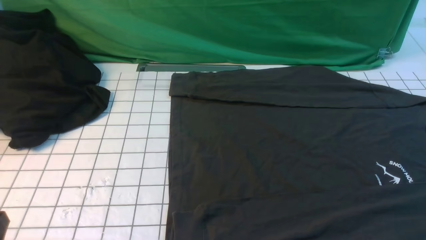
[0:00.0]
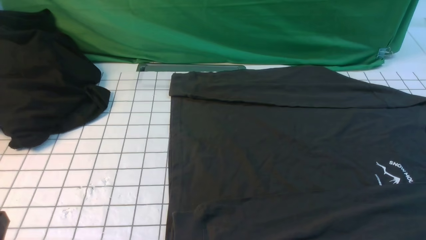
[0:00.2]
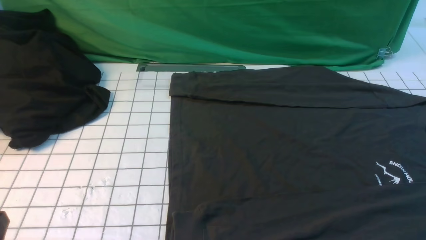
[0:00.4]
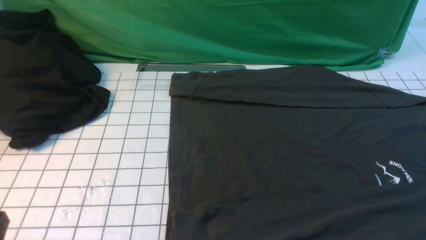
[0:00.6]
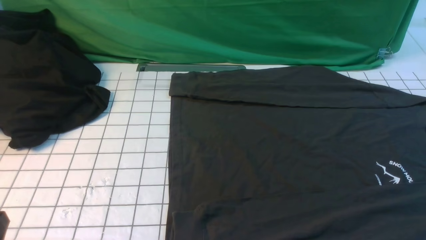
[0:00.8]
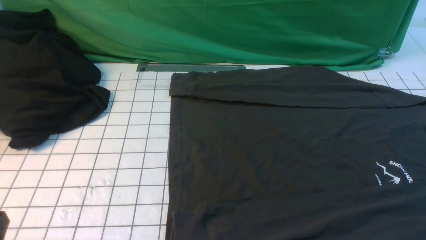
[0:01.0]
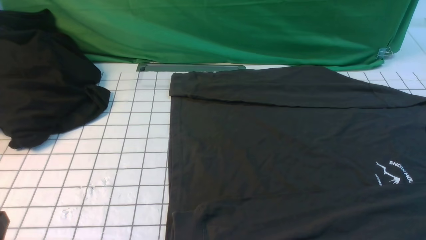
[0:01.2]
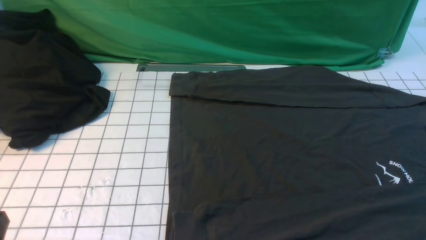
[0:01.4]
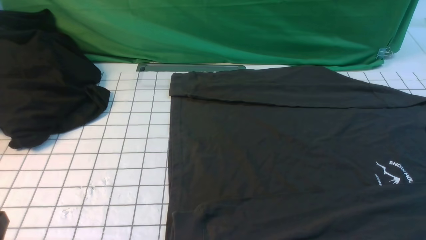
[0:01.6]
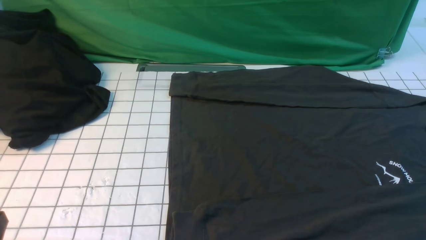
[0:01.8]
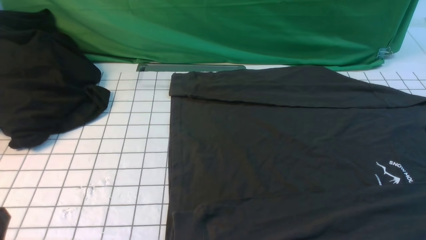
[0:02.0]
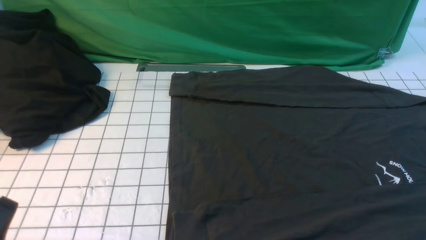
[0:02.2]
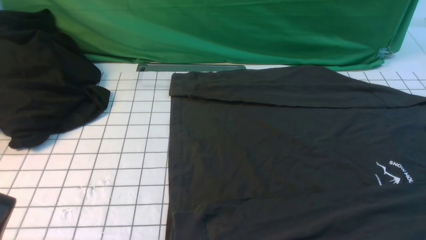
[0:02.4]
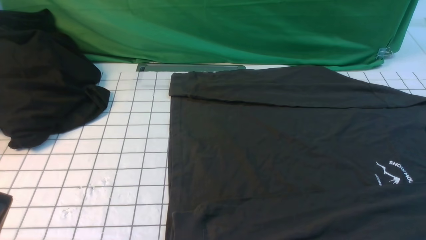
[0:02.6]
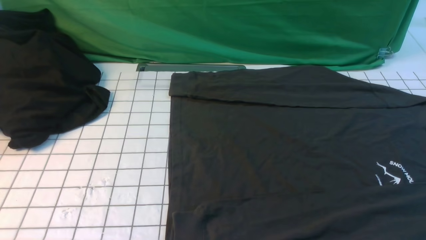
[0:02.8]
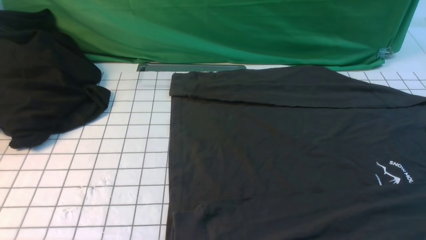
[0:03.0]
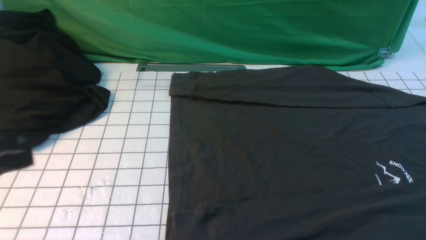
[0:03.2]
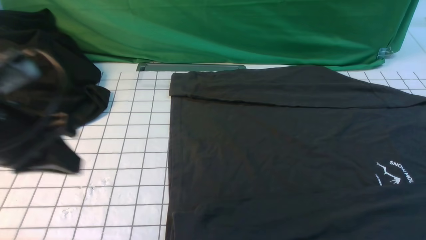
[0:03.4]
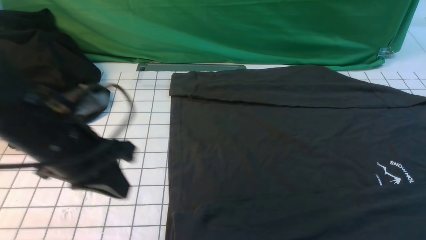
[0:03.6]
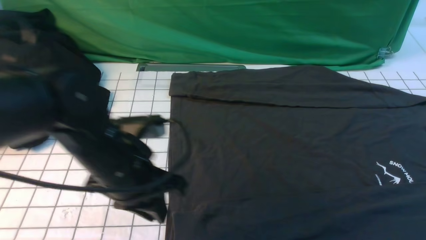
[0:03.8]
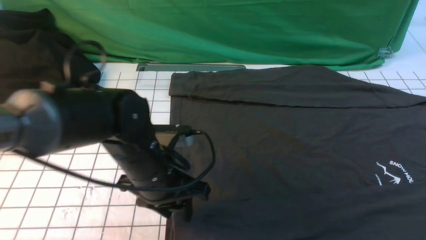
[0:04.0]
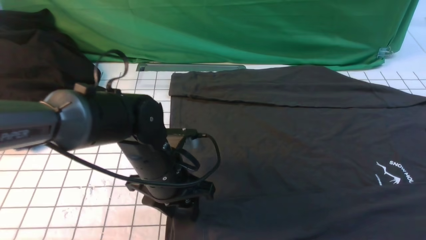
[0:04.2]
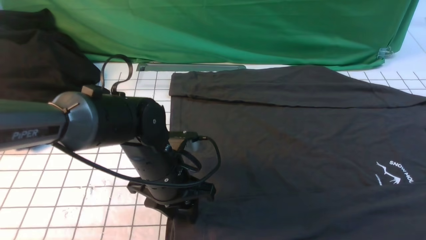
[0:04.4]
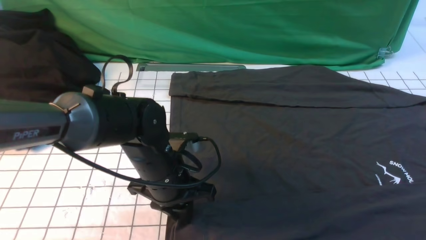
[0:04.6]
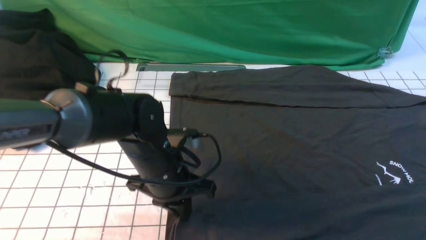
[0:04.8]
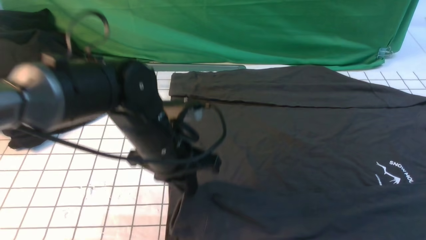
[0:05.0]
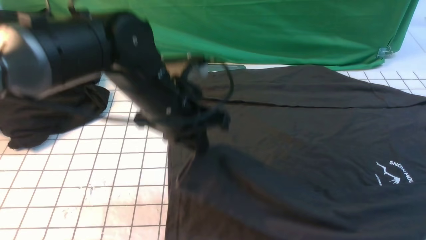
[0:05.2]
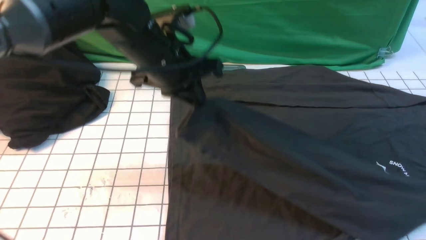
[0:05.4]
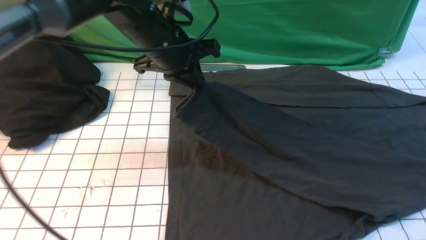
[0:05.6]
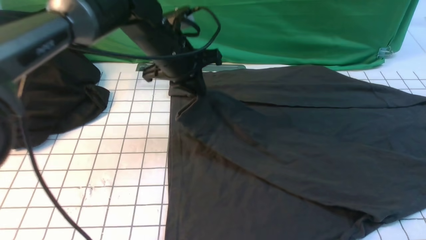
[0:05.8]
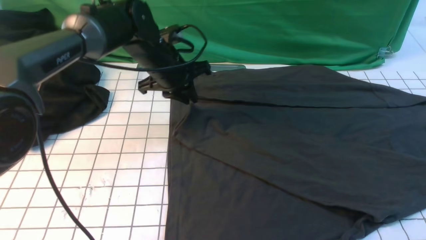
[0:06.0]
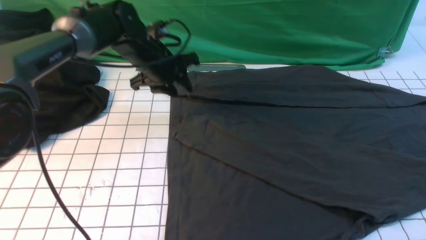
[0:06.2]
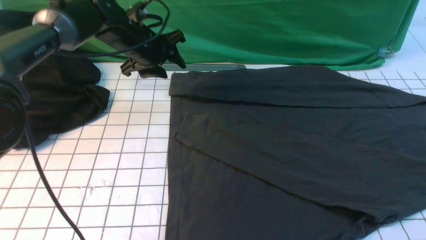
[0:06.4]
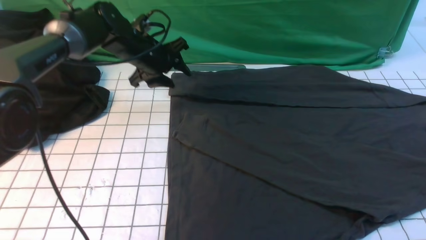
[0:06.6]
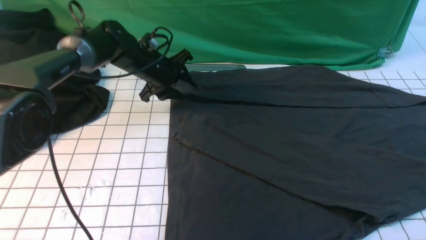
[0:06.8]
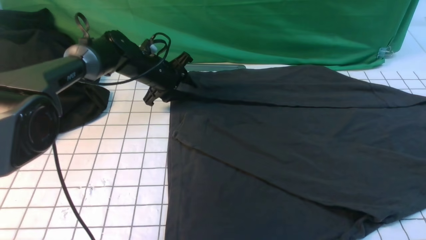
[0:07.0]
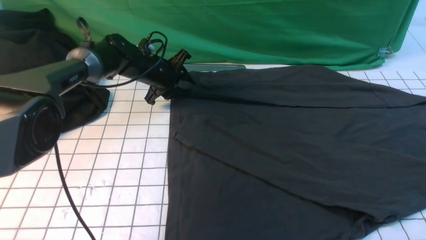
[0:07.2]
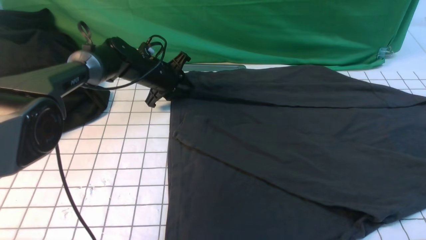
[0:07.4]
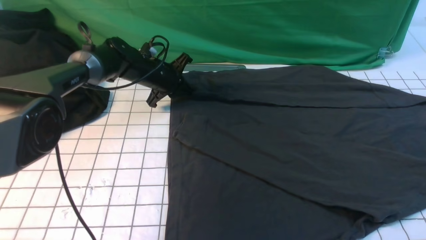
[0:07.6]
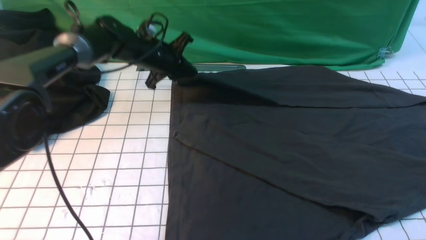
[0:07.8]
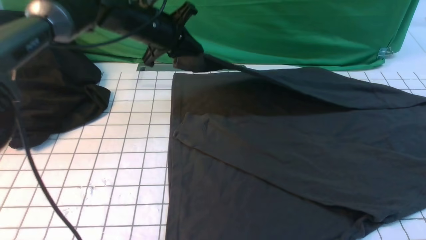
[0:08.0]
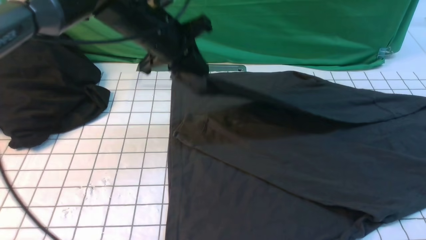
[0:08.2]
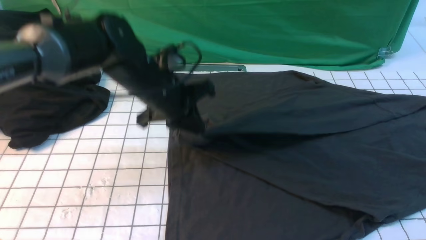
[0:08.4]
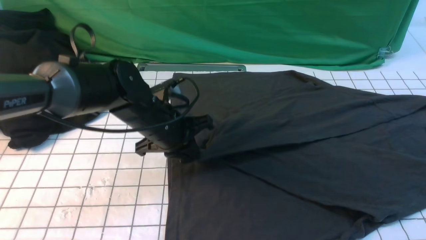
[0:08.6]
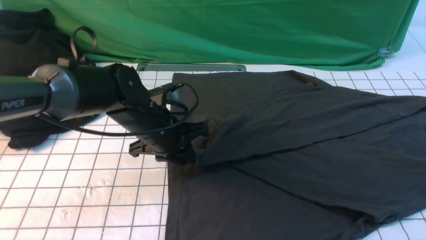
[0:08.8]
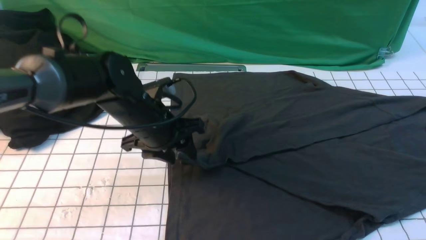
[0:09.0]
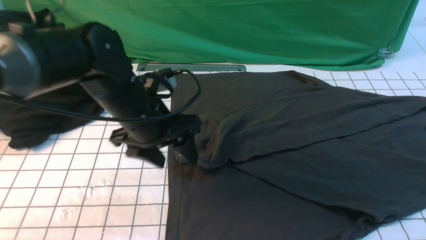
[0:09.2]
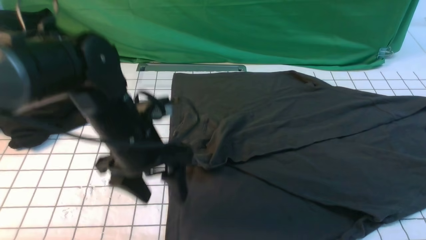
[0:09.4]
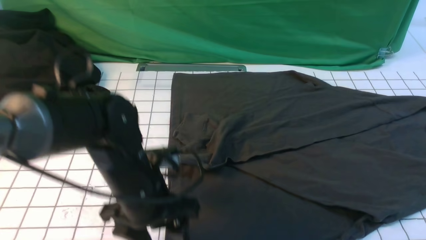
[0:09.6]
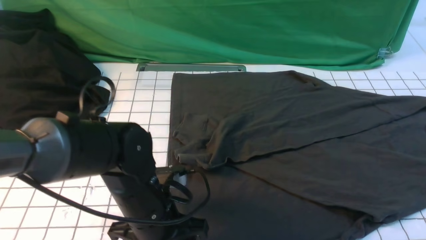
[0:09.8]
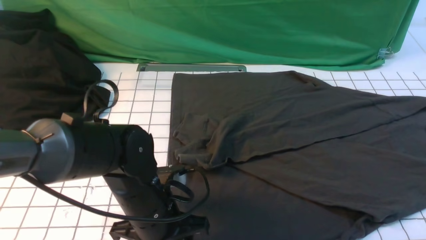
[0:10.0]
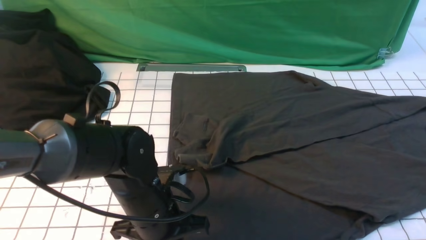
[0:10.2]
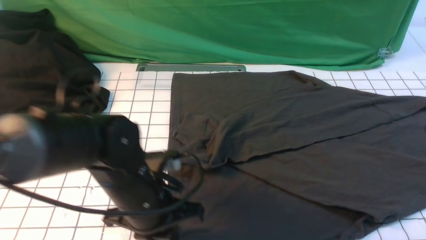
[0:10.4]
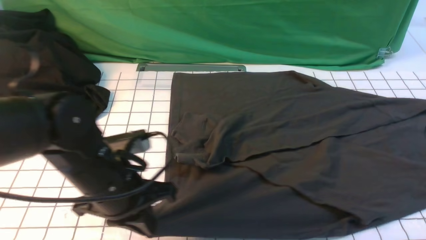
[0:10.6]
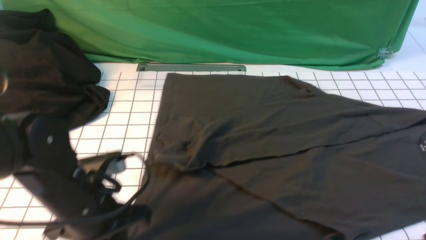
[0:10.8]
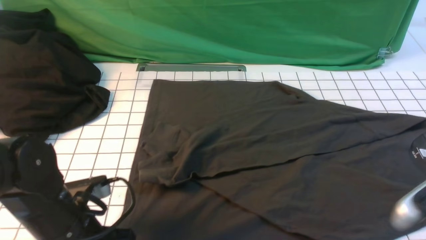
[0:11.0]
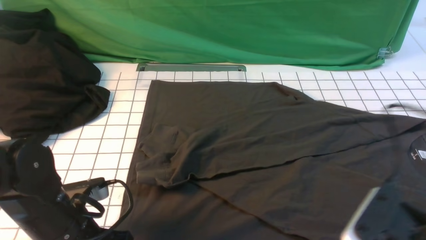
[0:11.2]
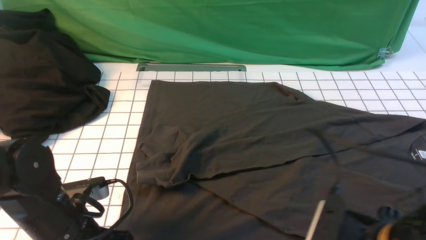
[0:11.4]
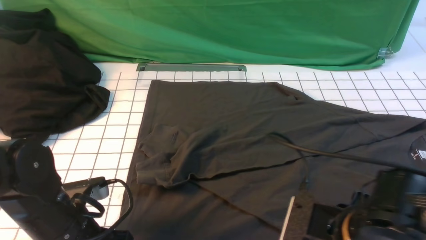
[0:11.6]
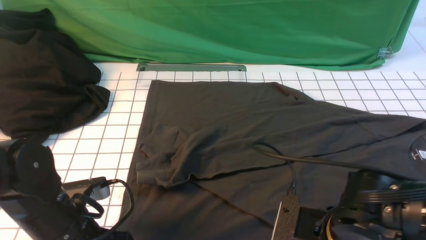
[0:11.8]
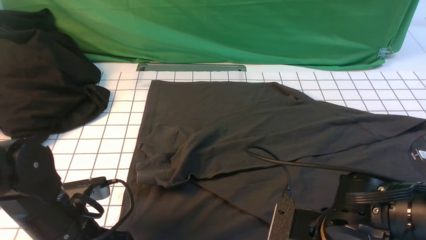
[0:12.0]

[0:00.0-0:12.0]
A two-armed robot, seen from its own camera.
Step, 0.0 to 4.6 s: use the left arm to clamp the cuff closest to it.
Step, 4.8 to 6.0 s: use the left arm to drag and place the cuff at the centered position on the left edge of the fabric.
Step, 6.2 to 7.4 s: use the left arm to clamp the cuff farthest from it.
Step, 7.6 to 9.0 s: use the left arm to drag and drop the cuff onto the cuff closest to the left arm.
0.0 to 1.6 s: Neither gripper changes place.
3.0 to 4.4 s: The right gripper shifts about 5 cm forward. The left gripper shifts roughly 30 cm forward, to the right and downward, and opens up.
4.4 to 6.0 s: The left gripper is displaced forward by roughly 20 cm.
6.0 to 7.6 s: The left gripper goes approximately 10 cm downward and forward, and opens, then closes again.
7.6 to 9.0 s: The left gripper shifts roughly 20 cm backward, and opens its fingers.
9.0 to 10.4 s: The left gripper travels backward by about 10 cm, and closes.
10.4 to 12.0 s: The left gripper travels to the left by approximately 10 cm. The right gripper travels to the left and downward by about 20 cm, and opens its fingers.

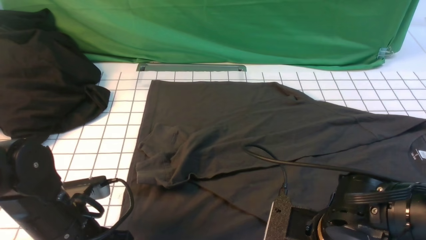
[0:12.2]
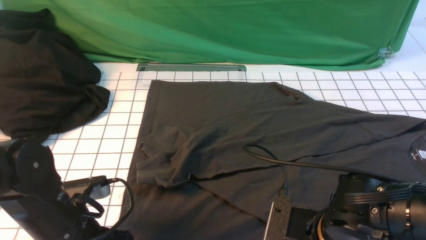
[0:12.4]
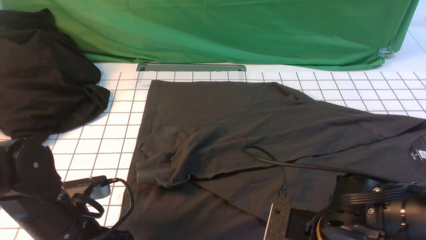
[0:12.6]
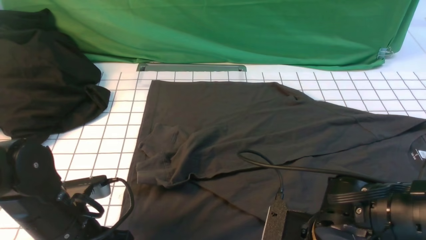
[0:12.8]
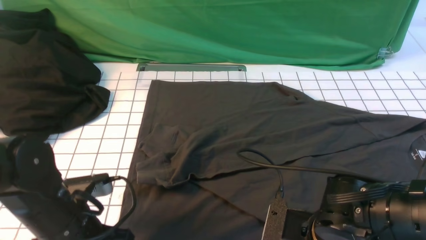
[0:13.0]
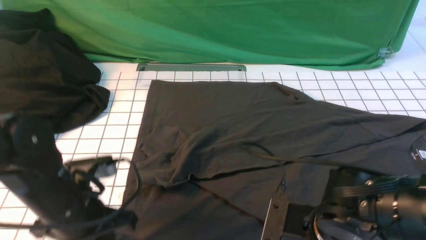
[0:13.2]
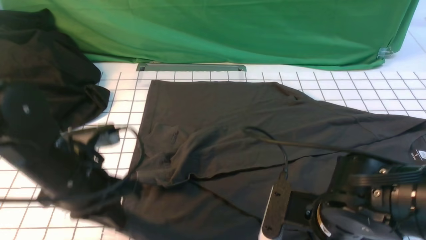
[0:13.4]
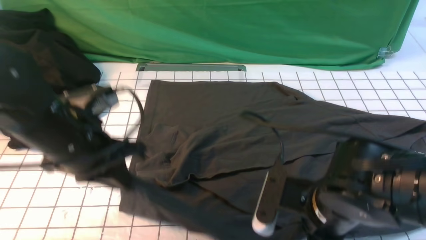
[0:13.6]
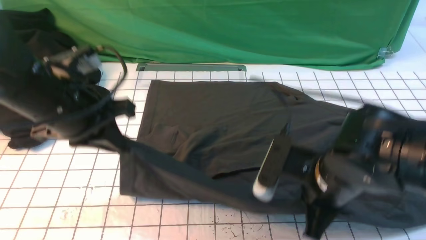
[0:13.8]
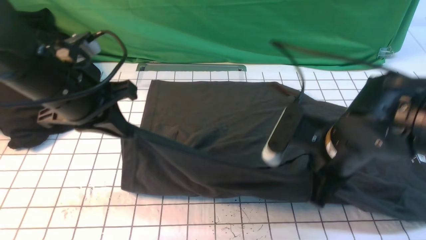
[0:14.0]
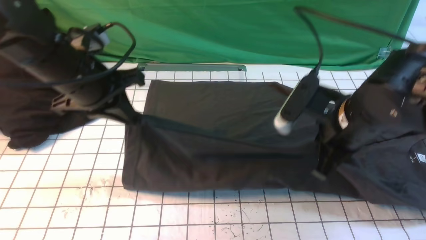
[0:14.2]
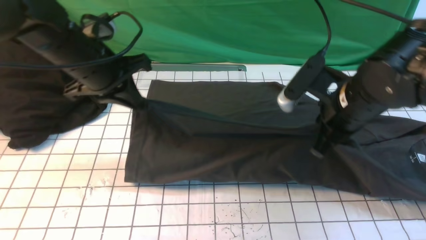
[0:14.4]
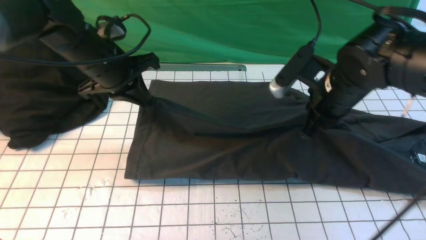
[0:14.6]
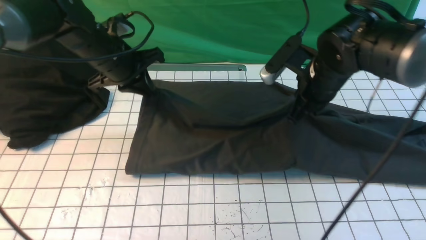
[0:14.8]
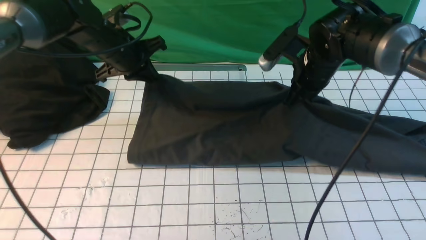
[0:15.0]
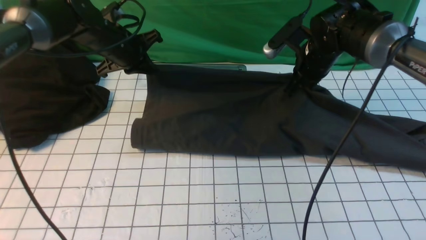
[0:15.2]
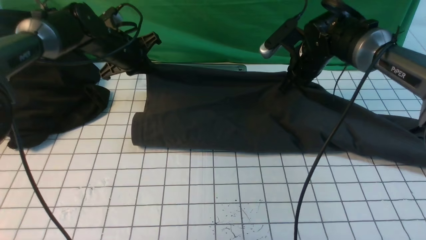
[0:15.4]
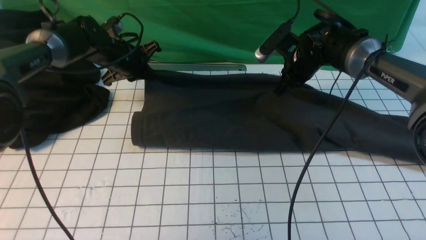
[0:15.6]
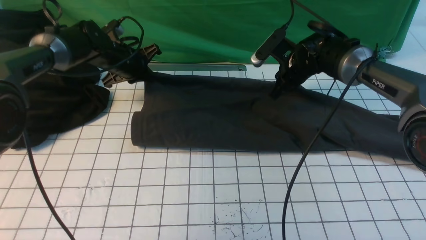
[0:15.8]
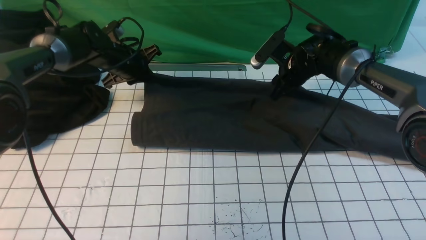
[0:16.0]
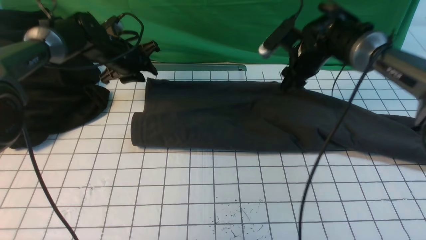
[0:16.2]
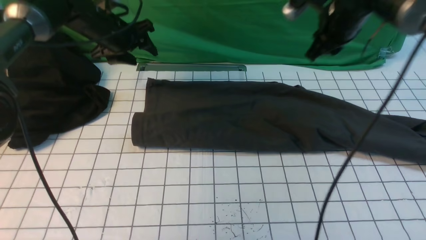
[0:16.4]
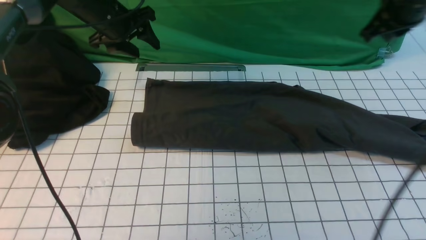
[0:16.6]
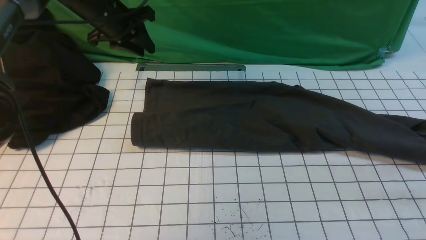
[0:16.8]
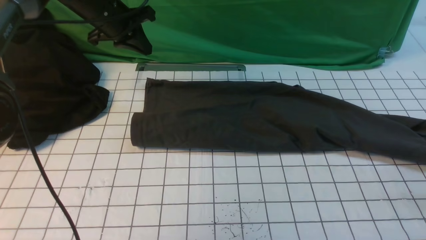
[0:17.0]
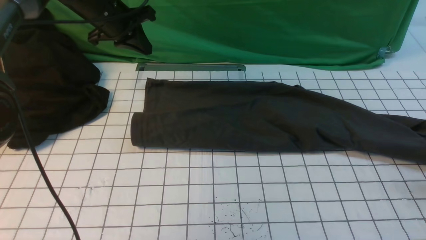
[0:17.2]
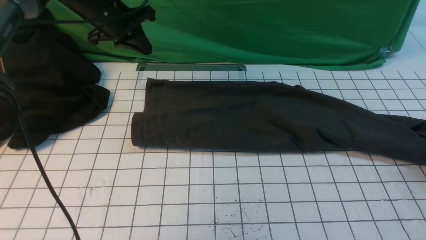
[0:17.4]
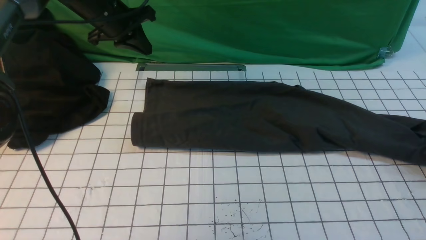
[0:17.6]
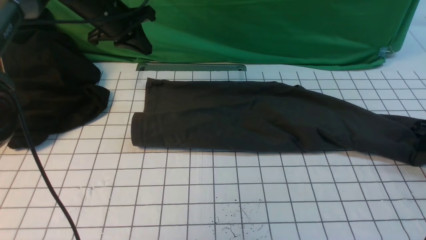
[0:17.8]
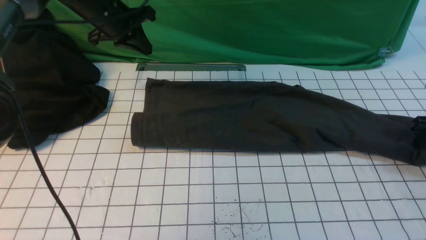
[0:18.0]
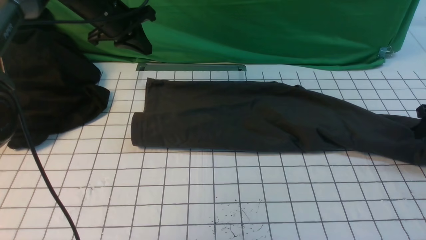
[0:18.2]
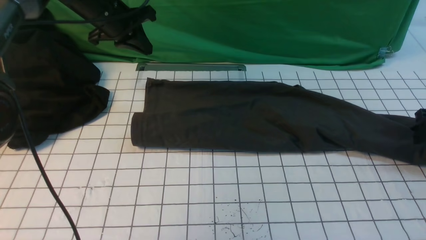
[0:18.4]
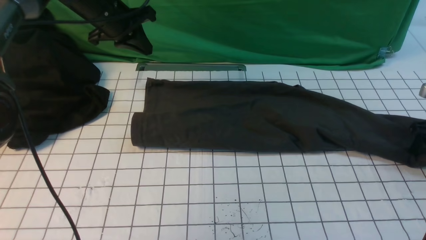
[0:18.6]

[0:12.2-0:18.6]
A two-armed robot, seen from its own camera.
Step, 13.0 to 16.0 s: use both arms to drag the lower edge of the fabric forward and fold it over the upper edge.
12.2 to 13.8 s: The left gripper shifts approximately 15 cm upward and forward, while the right gripper shifts roughly 10 cm upward and forward, and closes its fingers.
13.8 to 15.4 s: Both grippers move forward, some 25 cm.
15.4 to 17.0 s: The left gripper goes some 10 cm upward, and opens, then closes again; the right gripper heads to the right and backward, covering about 30 cm.
17.0 to 18.6 s: The right gripper travels downward by some 10 cm, and opens.
